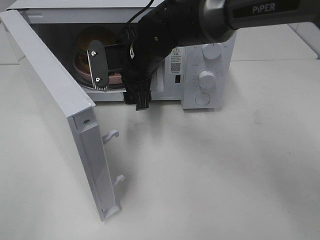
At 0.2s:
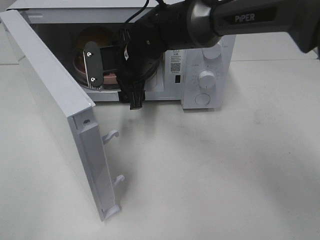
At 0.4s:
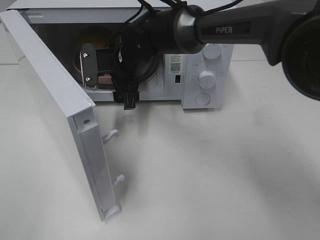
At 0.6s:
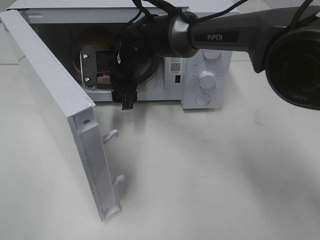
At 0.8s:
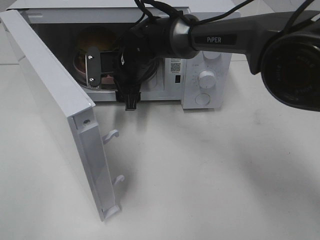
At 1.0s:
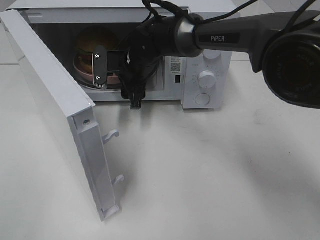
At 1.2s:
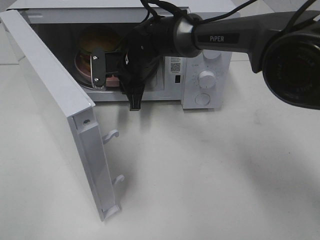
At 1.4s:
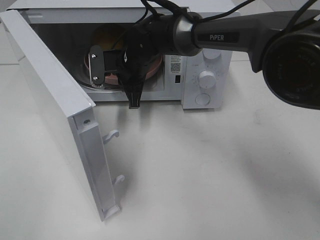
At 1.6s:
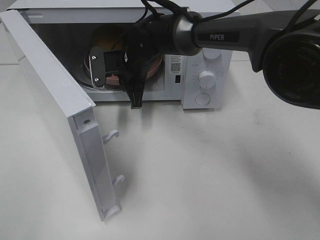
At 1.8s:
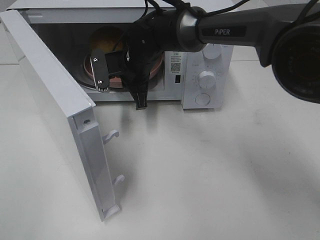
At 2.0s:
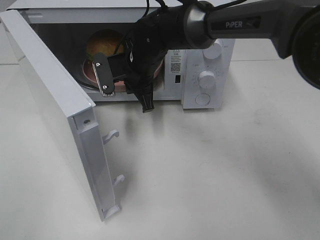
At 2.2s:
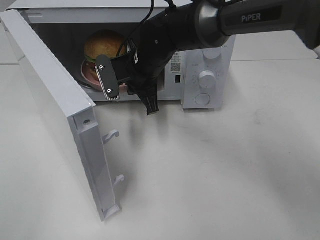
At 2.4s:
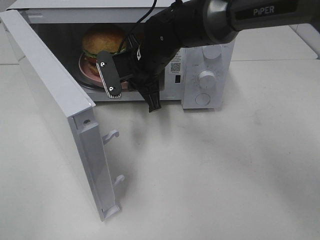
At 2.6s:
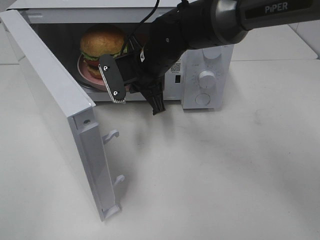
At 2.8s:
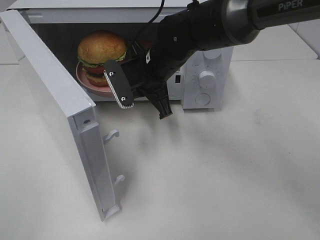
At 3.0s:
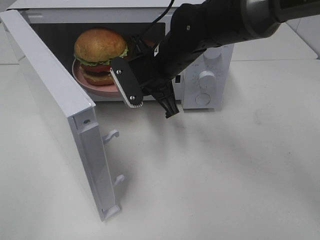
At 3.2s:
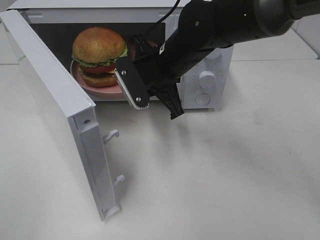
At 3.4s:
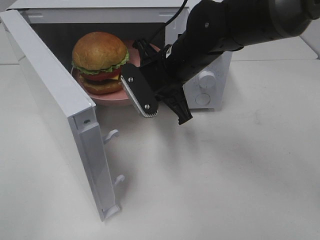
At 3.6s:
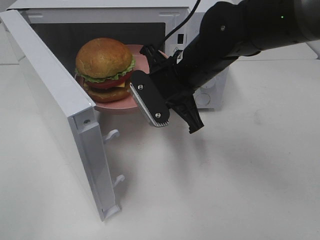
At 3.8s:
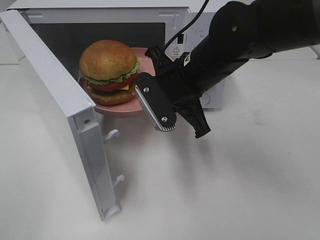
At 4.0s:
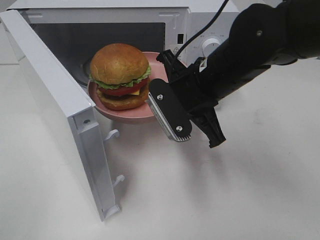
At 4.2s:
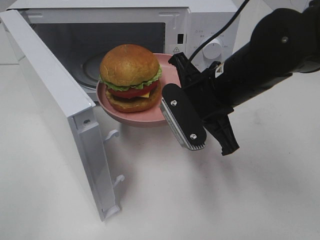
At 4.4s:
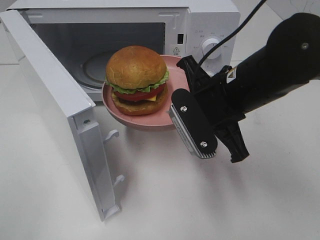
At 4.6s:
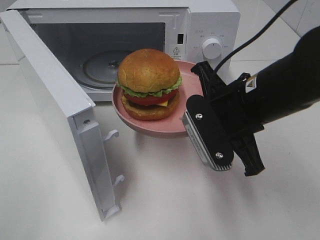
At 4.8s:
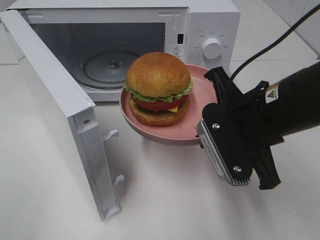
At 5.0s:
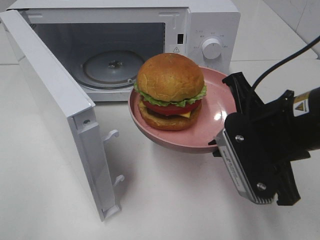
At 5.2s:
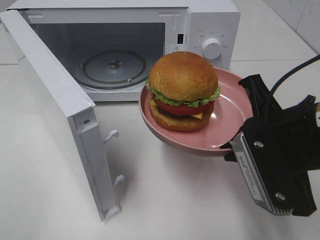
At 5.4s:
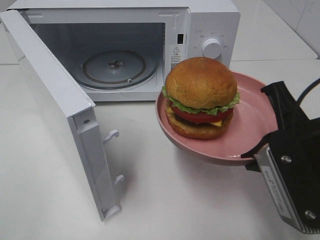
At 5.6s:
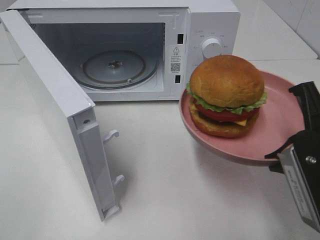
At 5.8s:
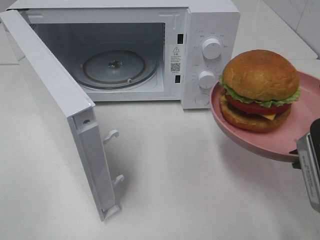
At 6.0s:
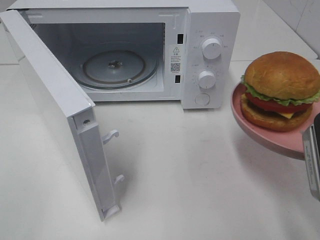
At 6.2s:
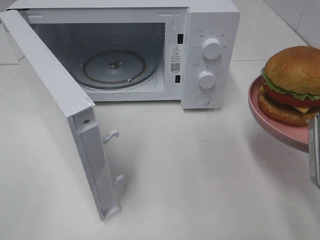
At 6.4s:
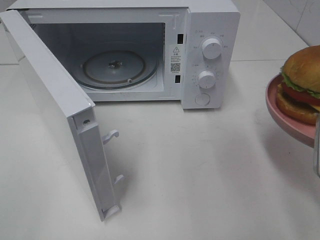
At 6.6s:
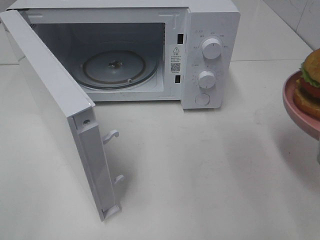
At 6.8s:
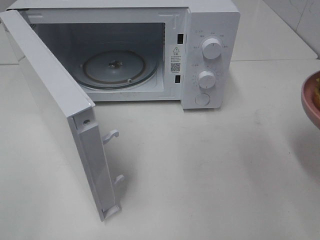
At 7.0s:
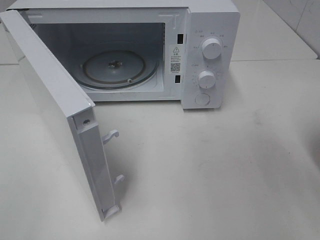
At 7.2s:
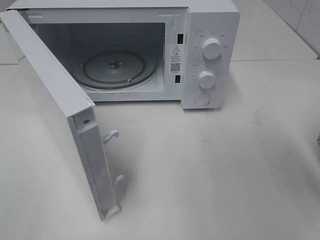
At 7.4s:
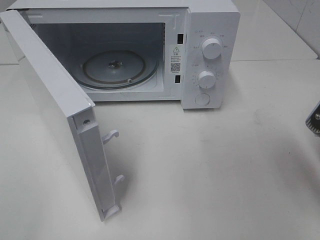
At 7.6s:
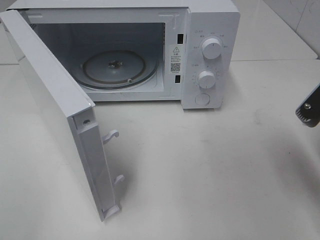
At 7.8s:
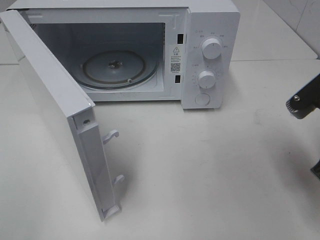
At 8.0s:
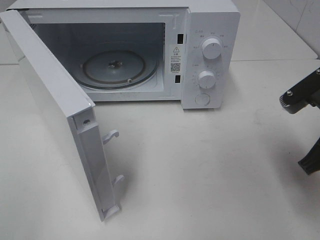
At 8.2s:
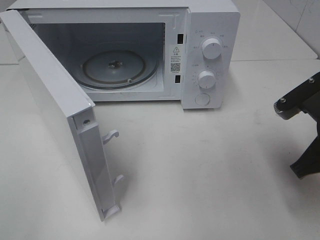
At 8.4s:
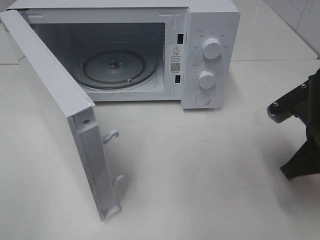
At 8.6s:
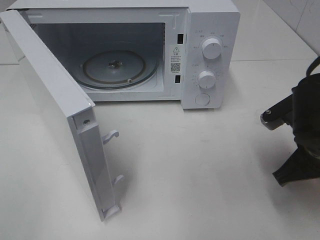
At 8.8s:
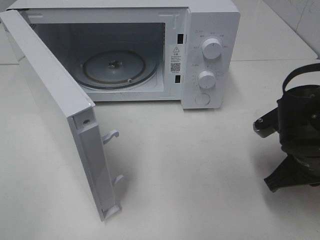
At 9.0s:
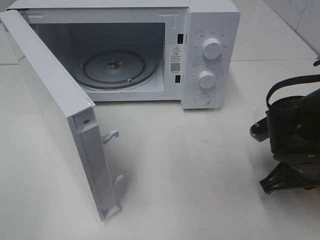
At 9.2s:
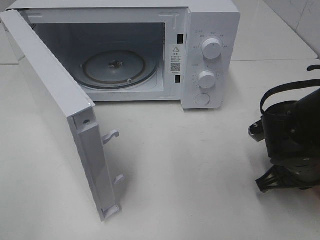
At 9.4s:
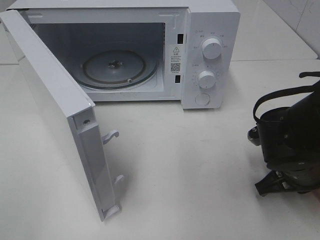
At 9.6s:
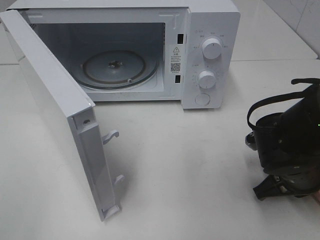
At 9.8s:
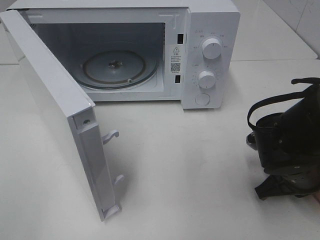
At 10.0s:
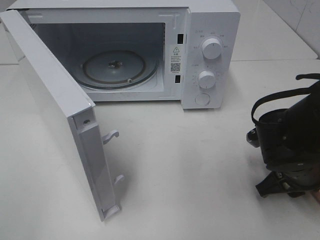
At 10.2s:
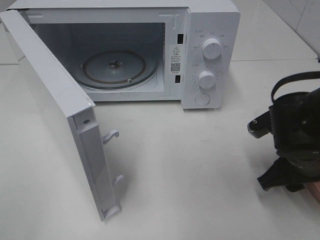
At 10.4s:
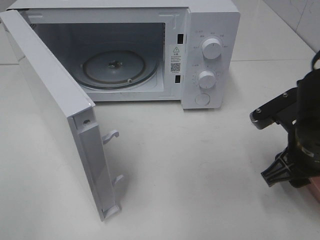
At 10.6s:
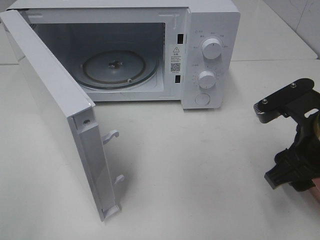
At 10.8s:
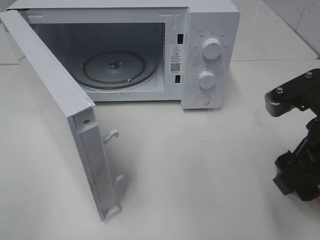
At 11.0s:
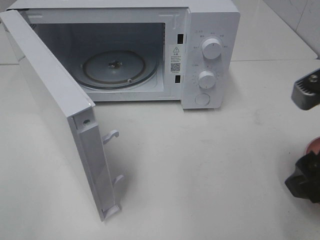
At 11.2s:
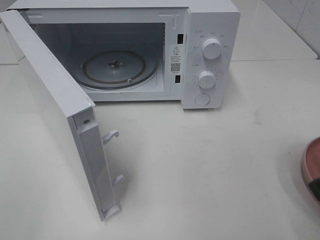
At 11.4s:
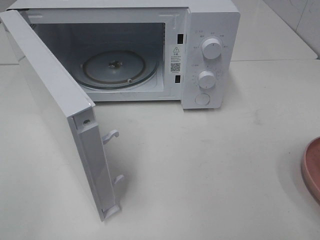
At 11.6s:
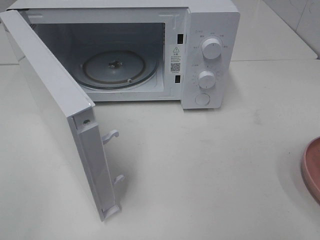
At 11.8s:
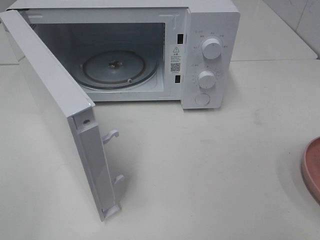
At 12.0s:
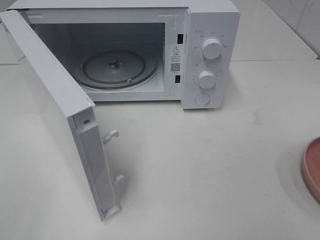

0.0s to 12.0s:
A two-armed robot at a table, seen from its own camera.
Task of the whole recording: Heat the burger.
Step, 1.6s to 10.2s: Right hand: place the plate on the table.
0.0s to 1.6s: The right gripper travels forward by approximately 5 cm, and closes.
1.6s to 3.0s: The right gripper travels backward and to the right by some 10 cm.
3.0s to 4.4s: The right gripper moves backward and to the right, roughly 15 cm.
4.4s to 6.0s: The right gripper goes approximately 15 cm backward and to the right.
7.6s to 9.0s: The right gripper moves downward, some 10 cm.
9.0s to 10.4s: The right gripper opens its fingers.
10.4s to 12.0s: The right gripper moves backward, upward and to the right, approximately 25 cm.

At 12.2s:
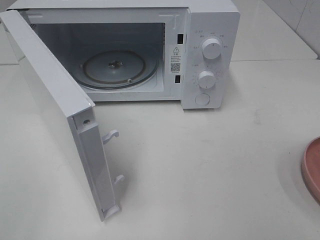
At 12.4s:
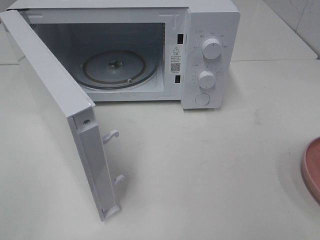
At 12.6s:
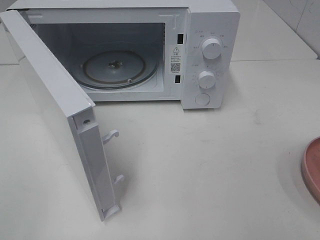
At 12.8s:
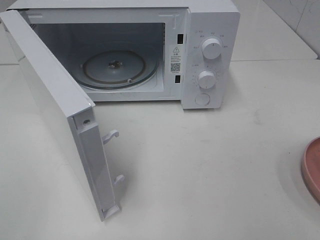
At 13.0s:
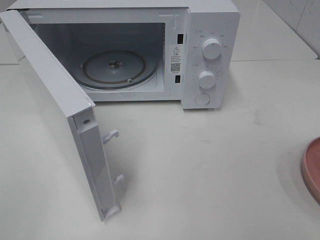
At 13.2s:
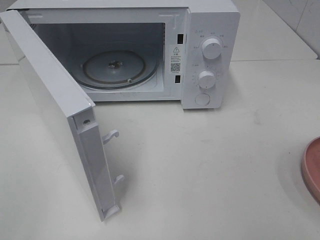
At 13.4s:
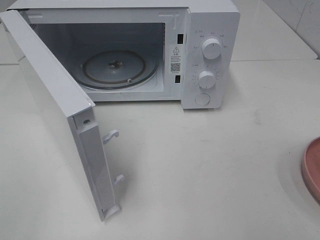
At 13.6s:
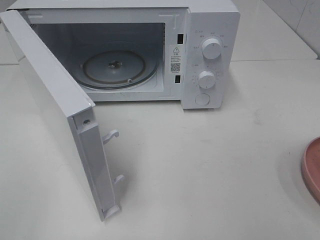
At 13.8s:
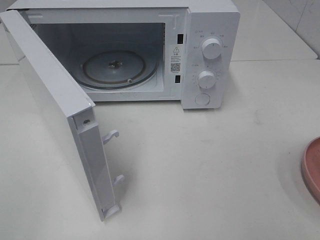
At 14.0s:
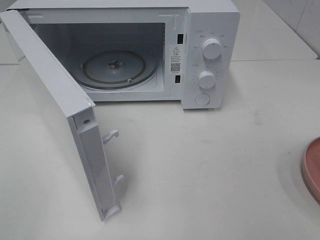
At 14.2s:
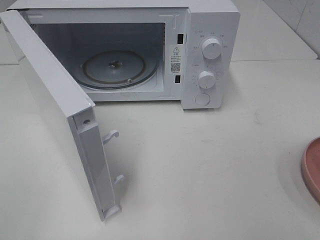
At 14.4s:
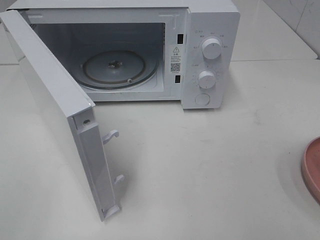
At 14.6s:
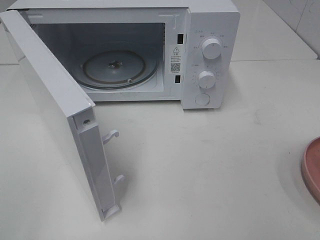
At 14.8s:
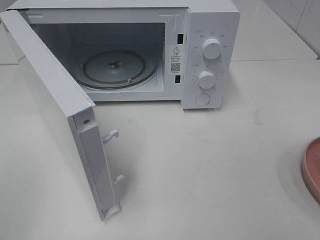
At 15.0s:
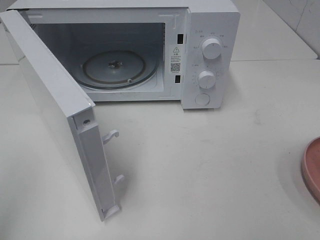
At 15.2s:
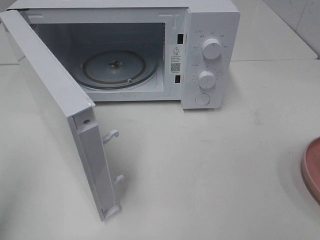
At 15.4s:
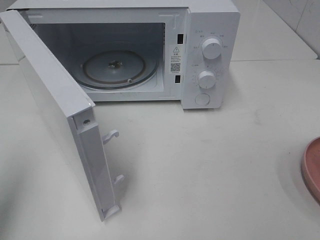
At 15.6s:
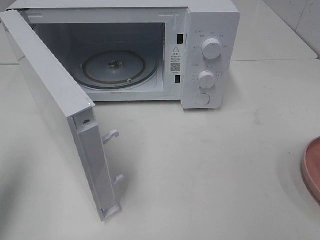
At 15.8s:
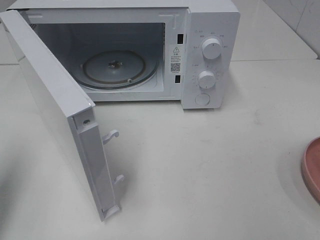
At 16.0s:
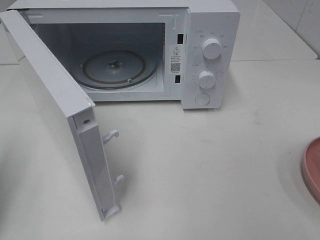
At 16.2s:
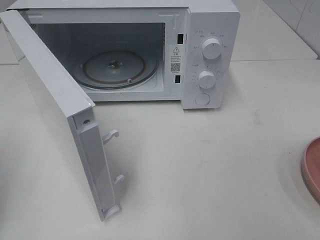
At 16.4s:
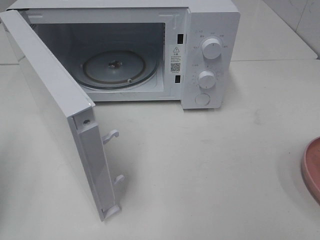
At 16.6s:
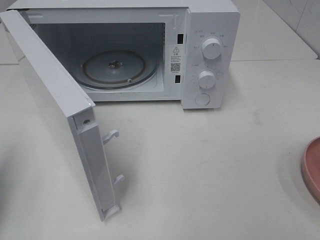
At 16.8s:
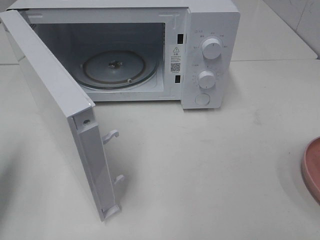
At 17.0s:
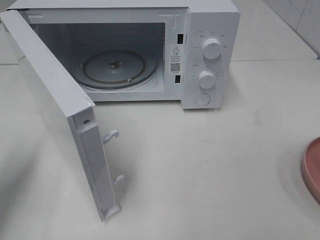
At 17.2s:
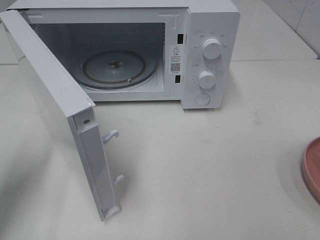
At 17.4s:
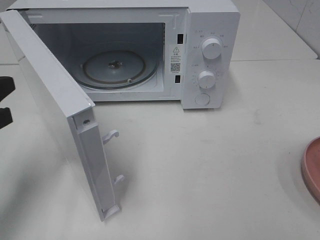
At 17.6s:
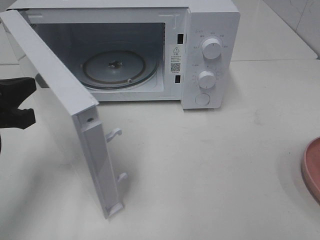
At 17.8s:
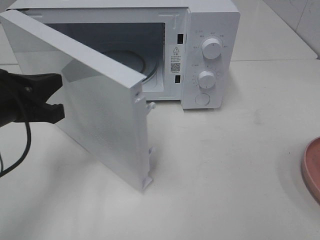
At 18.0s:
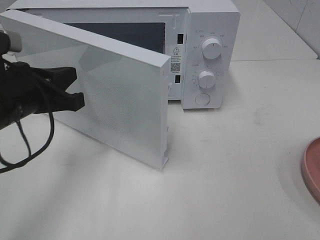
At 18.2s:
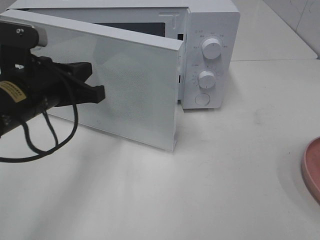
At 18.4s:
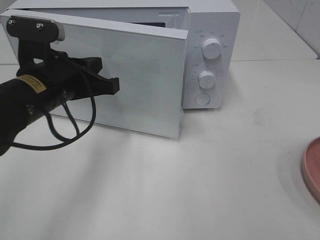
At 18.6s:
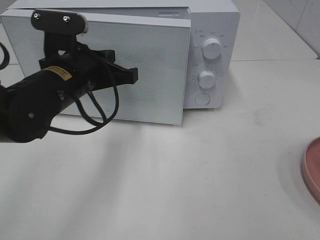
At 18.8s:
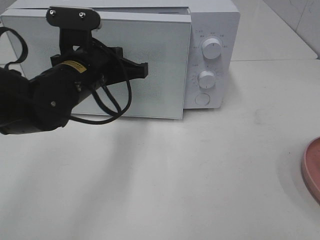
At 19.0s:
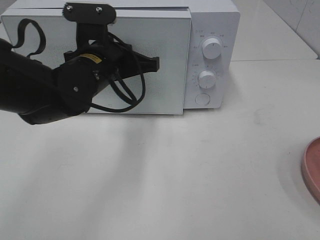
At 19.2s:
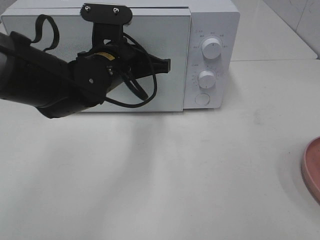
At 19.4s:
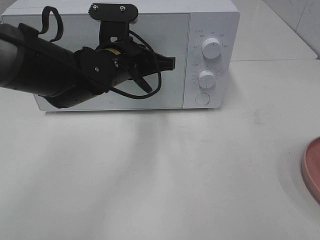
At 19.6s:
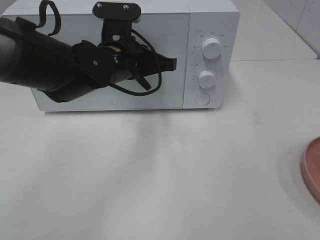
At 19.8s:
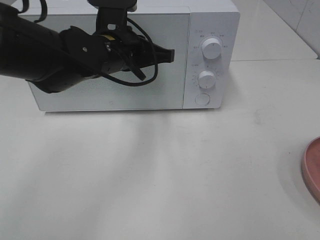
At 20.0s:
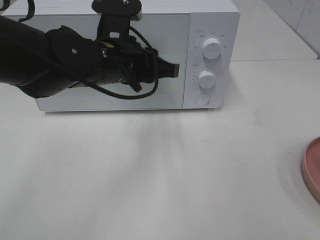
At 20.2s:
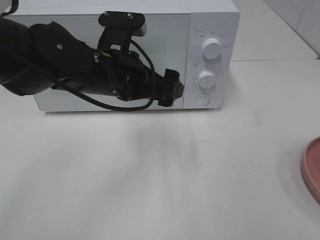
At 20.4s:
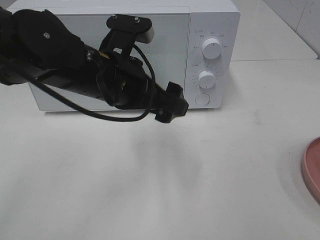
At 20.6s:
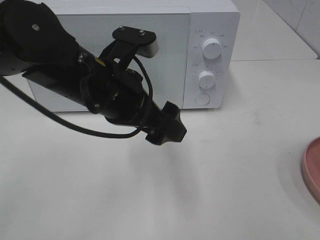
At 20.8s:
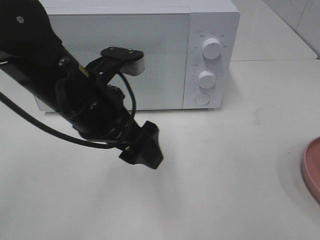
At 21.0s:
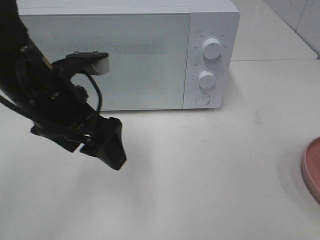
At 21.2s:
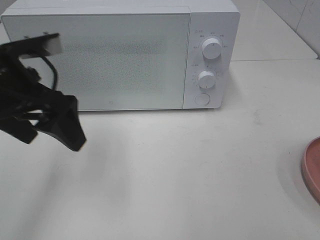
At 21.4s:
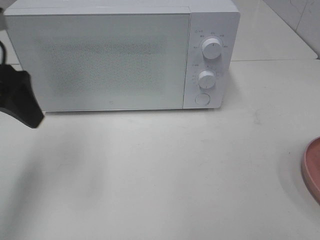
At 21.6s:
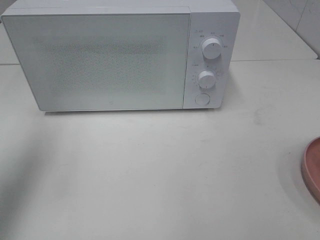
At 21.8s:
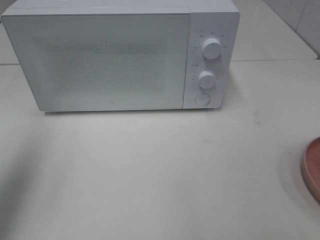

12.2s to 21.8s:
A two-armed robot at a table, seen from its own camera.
Task of the whole recording: Heat the burger.
Step, 12.2s to 20.4s: Left hand: close the microwave door.
13.8s to 15.4s: The left gripper travels forward by about 10 cm, and closes up.
17.0s to 18.6s: The left gripper goes some 20 cm to the right and forward.
18.6s to 20.2s: The left gripper shifts some 5 cm to the right, and opens its fingers.
20.2s to 21.8s: The left gripper moves to the left and upward, approximately 25 cm.

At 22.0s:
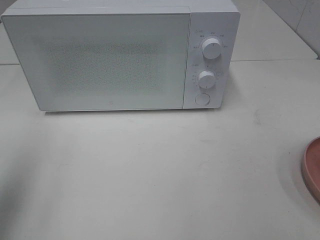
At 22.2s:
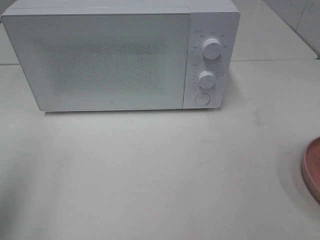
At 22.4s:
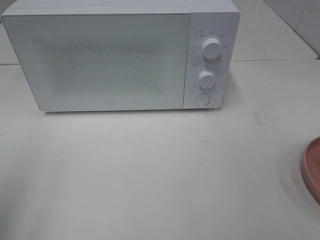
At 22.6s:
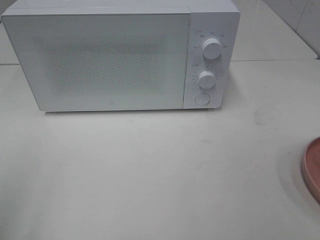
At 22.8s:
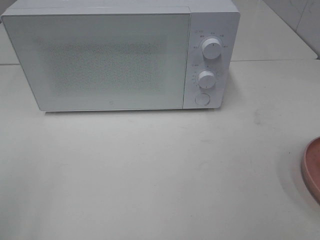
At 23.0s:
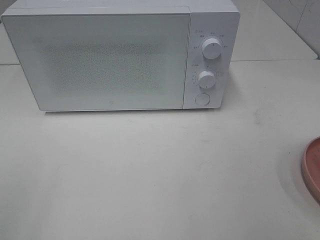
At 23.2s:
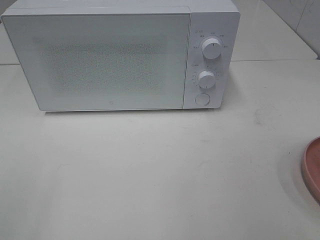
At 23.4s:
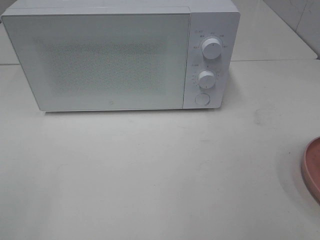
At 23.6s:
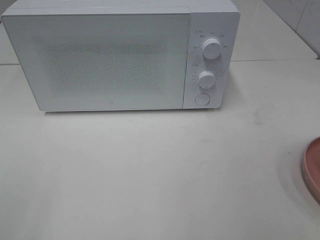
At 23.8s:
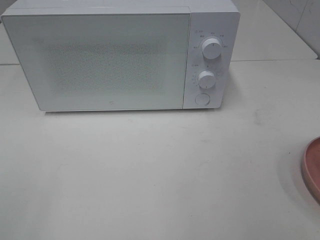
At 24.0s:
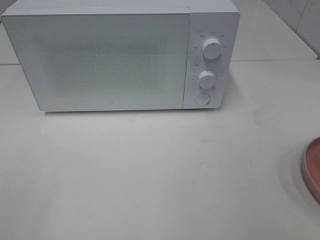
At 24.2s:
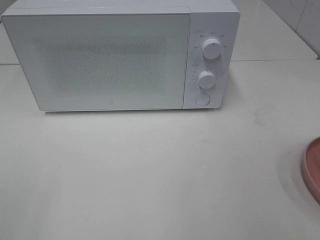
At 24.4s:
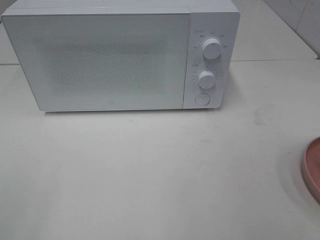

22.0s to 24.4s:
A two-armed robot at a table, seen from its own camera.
Task of the whole recording: Heat the burger.
22.0s to 23.2s: The left gripper is displaced backward by approximately 15 cm.
23.2s to 24.4s: Neither gripper changes place.
